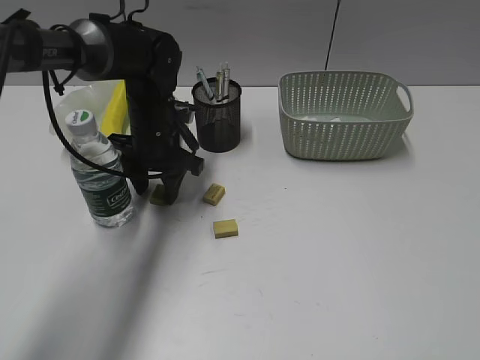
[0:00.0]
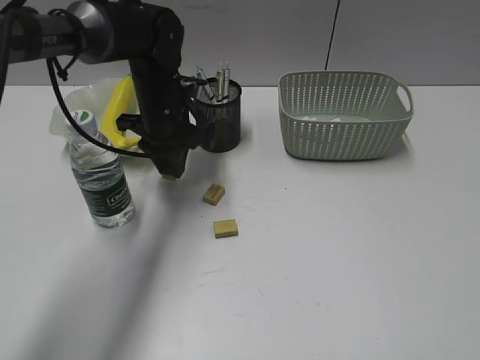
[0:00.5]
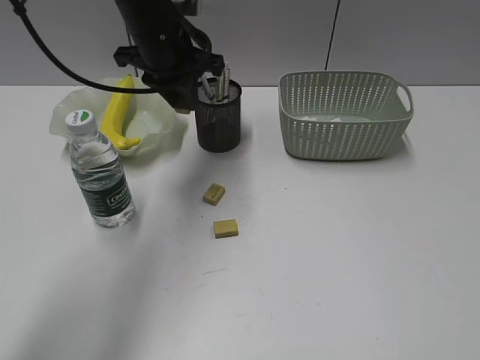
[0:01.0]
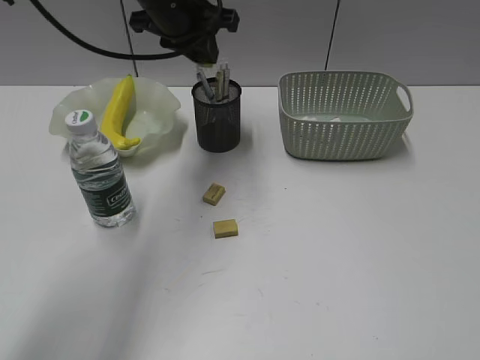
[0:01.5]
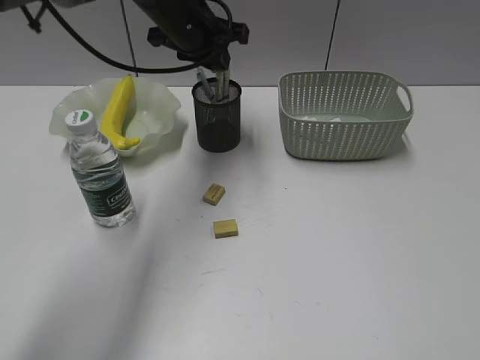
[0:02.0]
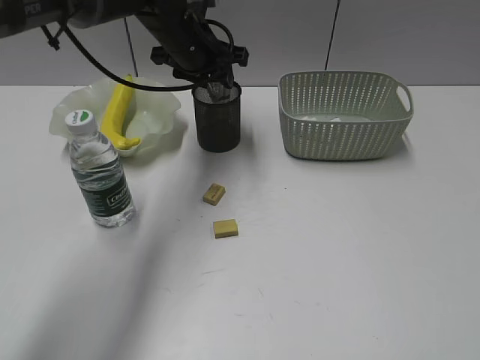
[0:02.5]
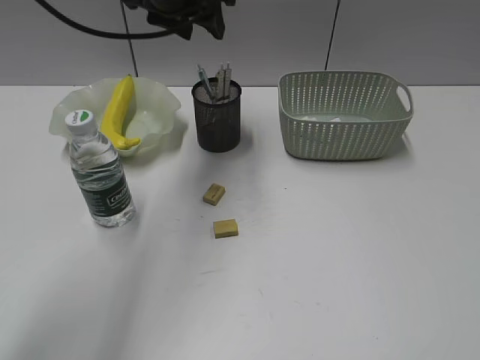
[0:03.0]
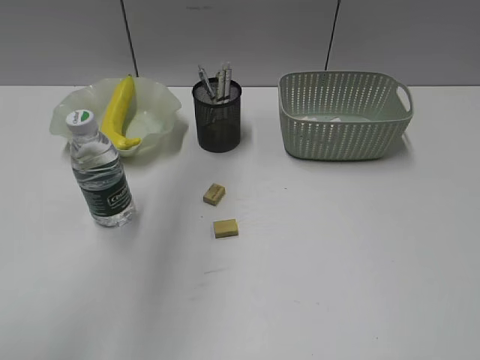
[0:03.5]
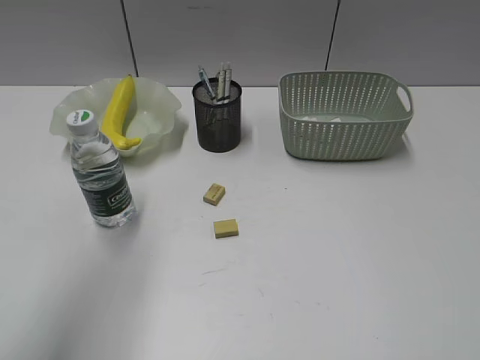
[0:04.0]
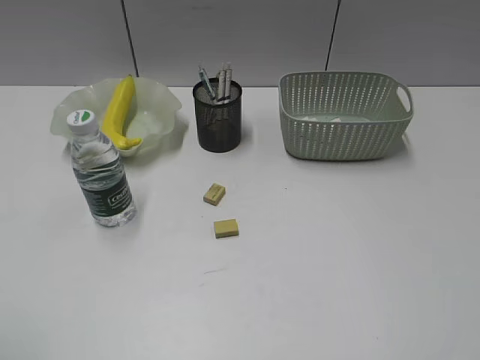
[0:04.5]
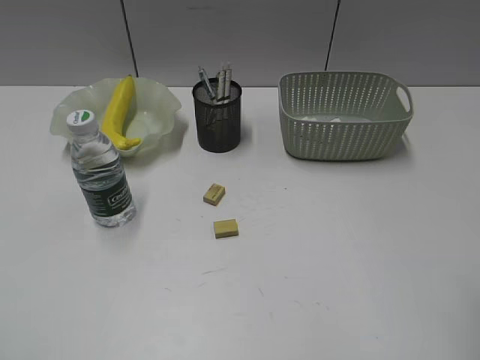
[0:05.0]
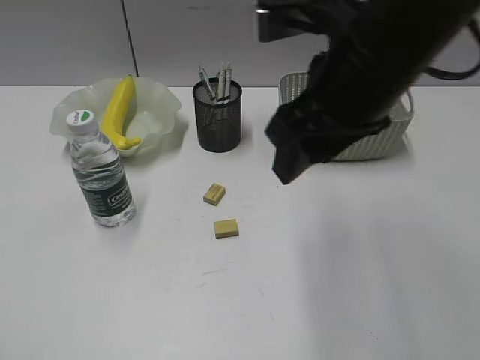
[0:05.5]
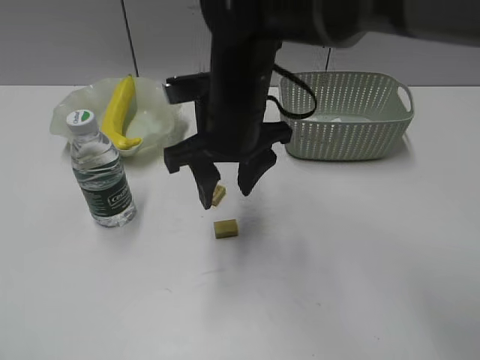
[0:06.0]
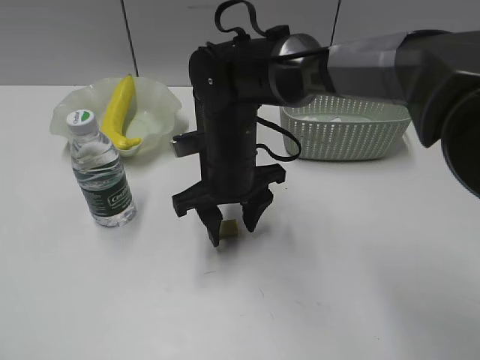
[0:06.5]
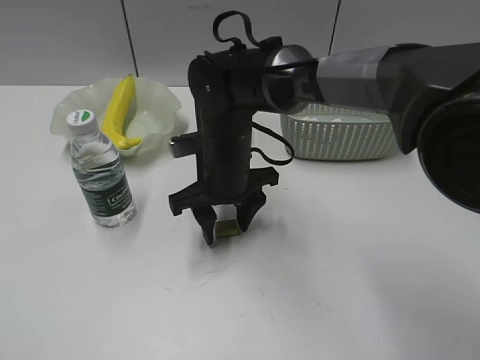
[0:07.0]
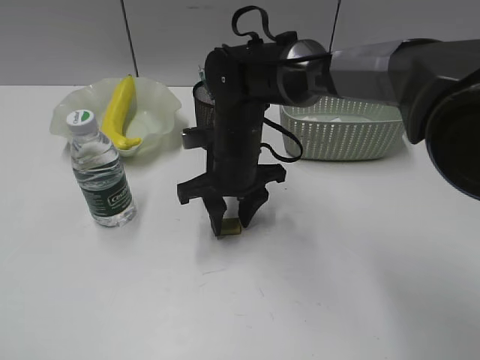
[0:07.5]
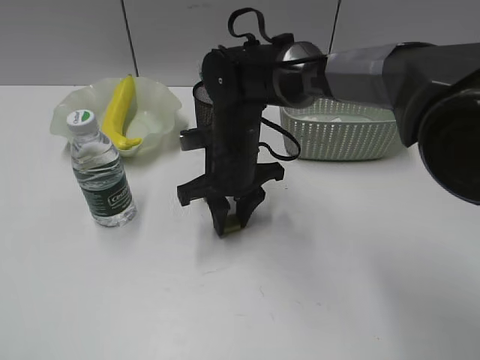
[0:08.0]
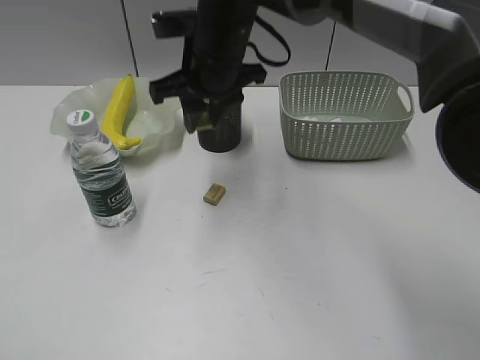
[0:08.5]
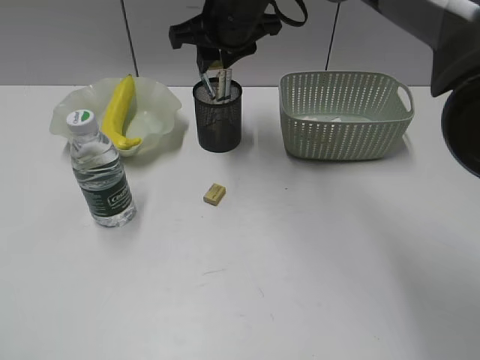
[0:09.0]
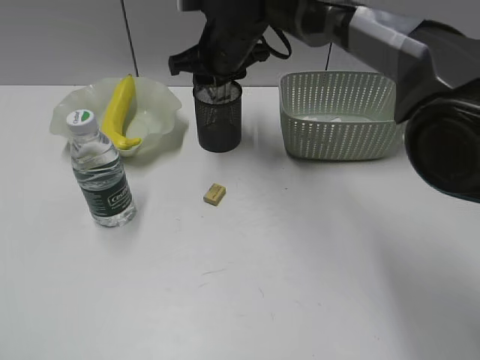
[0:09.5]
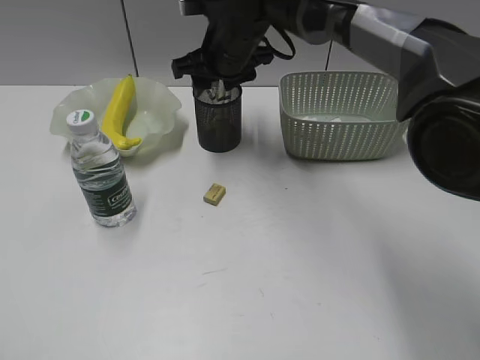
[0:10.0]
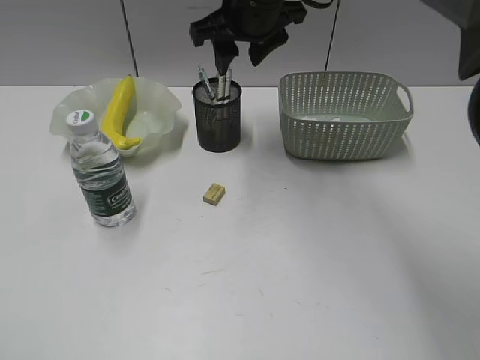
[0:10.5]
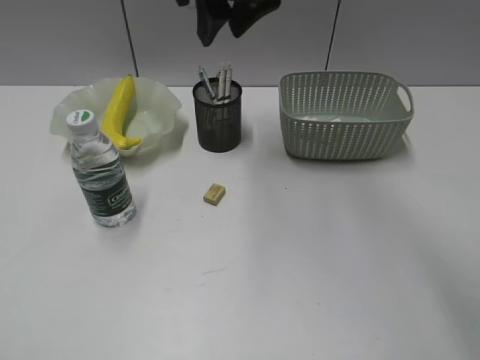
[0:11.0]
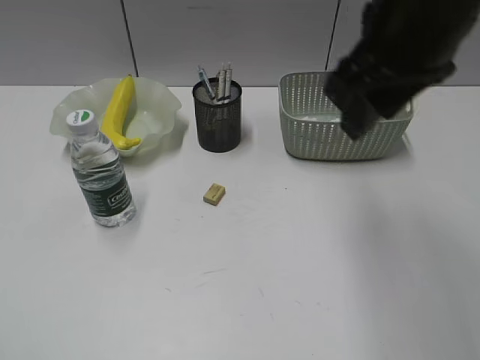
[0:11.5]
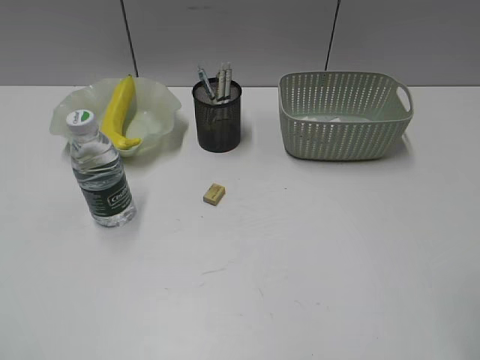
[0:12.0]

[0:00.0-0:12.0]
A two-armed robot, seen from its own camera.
Step, 0:00.5 to 0:02.5: Place the eraser in pen holder with left gripper.
Step, 0:03.0 to 0:08.0: Grasp the eraser with right gripper.
Step, 0:08.5 to 0:09.5: Place the eraser in pen holder with right gripper.
0:00.0 to 0:02.0: The left gripper shifts some 15 cm upward, and closes its fingers.
0:02.0 to 0:04.0: The left gripper shifts roughly 35 cm backward, to the left and upward.
0:04.0 to 0:06.0: The left gripper moves backward, to the left and downward, approximately 25 cm; the right gripper moves to the left and forward, approximately 40 cm.
0:06.0 to 0:08.0: The right gripper shifts roughly 10 cm downward, and closes up.
0:08.0 to 0:10.0: The right gripper moves forward and upward, some 15 cm, and opens its fingers.
0:10.0 to 0:12.0: The right gripper moves backward and to the right, some 40 cm.

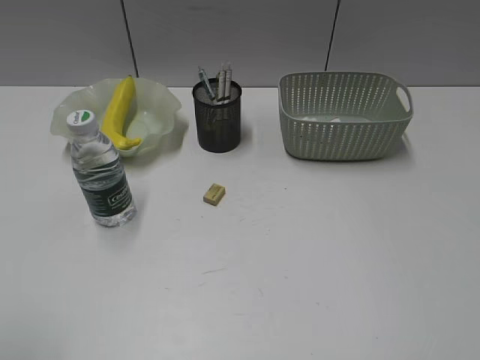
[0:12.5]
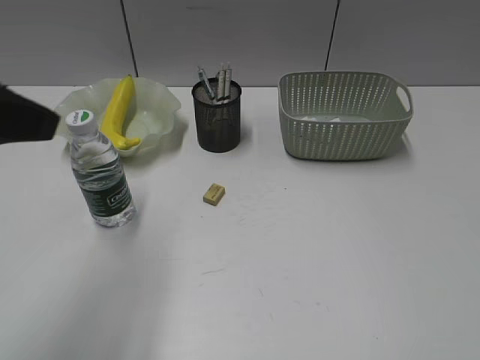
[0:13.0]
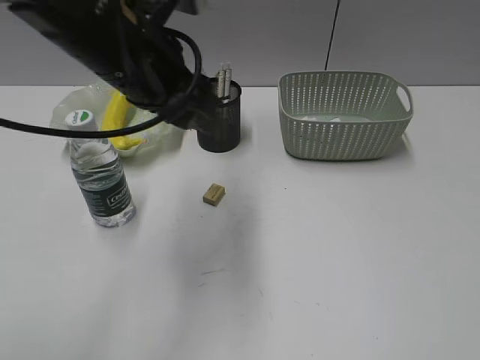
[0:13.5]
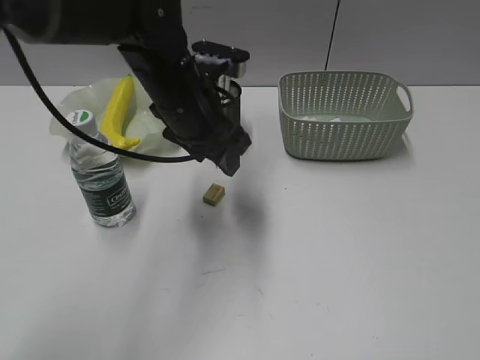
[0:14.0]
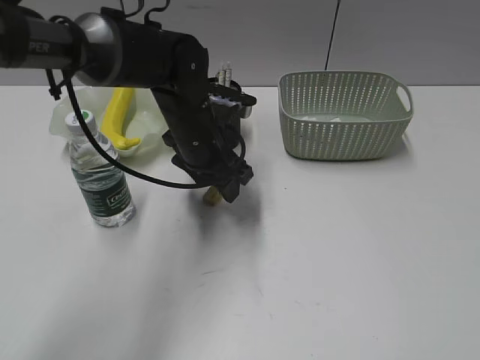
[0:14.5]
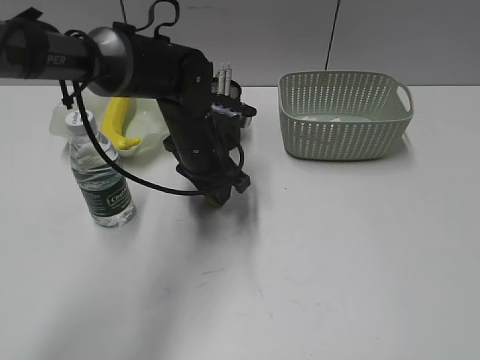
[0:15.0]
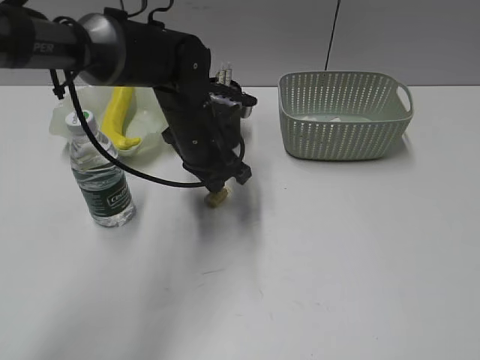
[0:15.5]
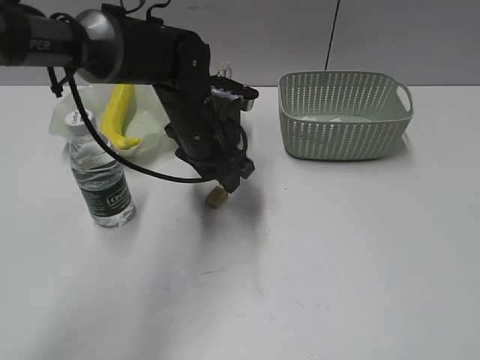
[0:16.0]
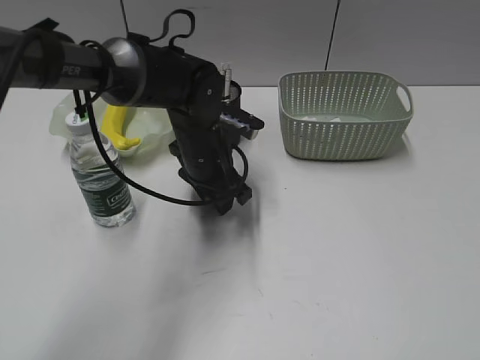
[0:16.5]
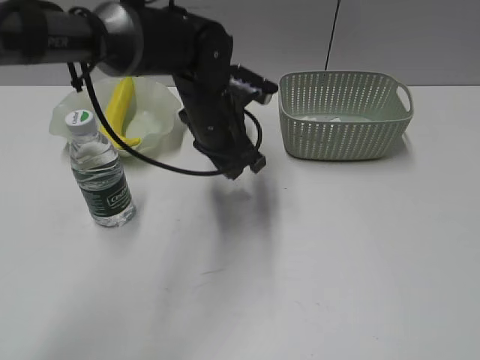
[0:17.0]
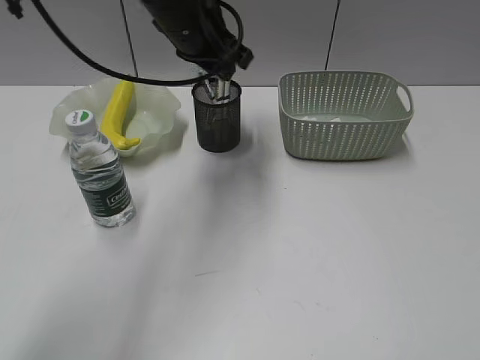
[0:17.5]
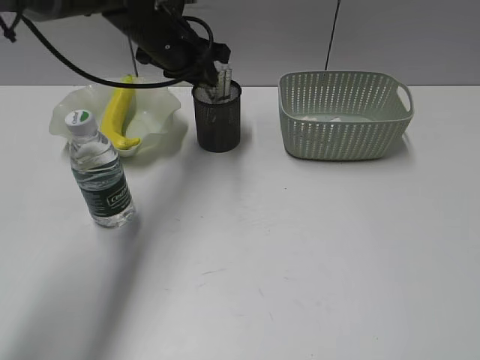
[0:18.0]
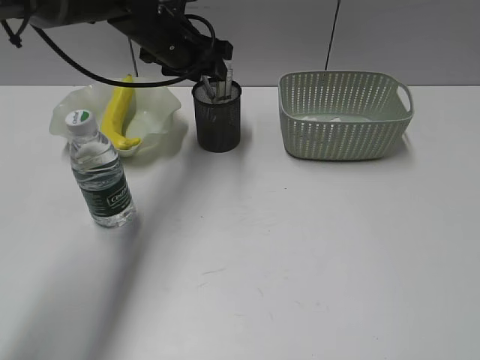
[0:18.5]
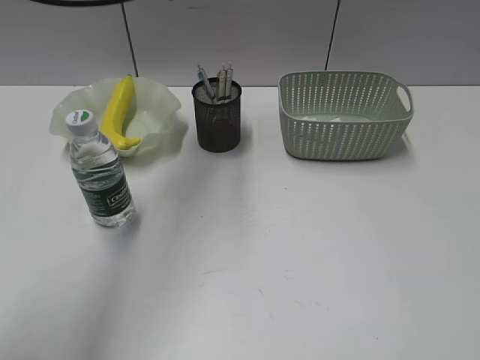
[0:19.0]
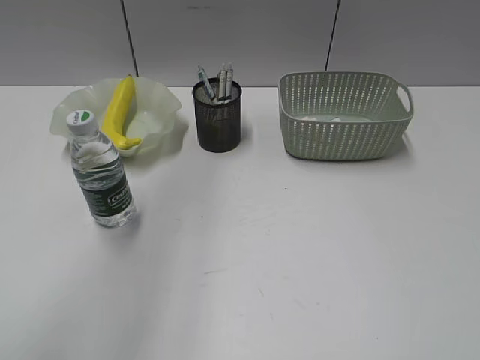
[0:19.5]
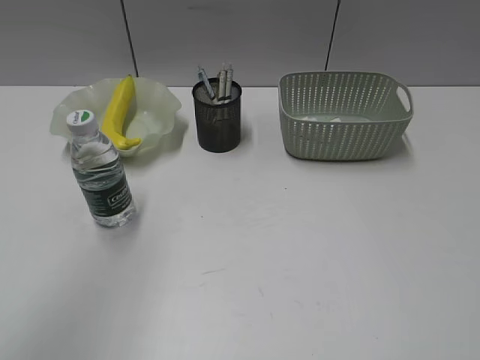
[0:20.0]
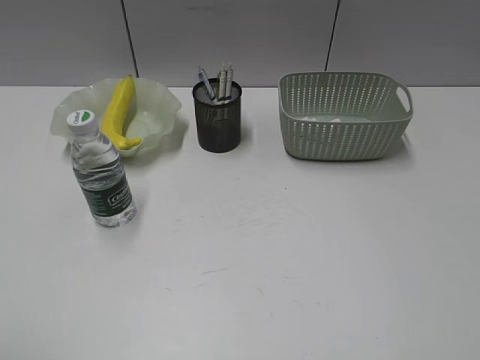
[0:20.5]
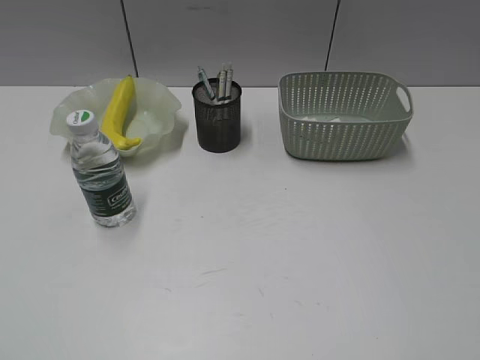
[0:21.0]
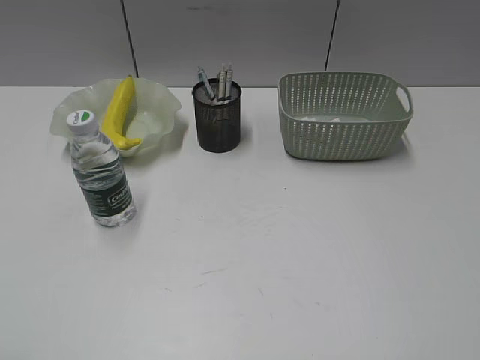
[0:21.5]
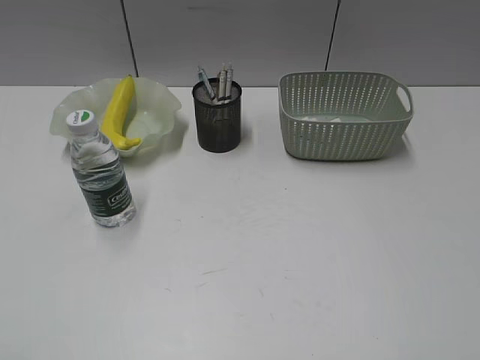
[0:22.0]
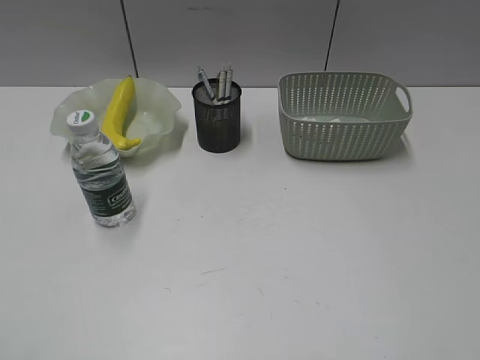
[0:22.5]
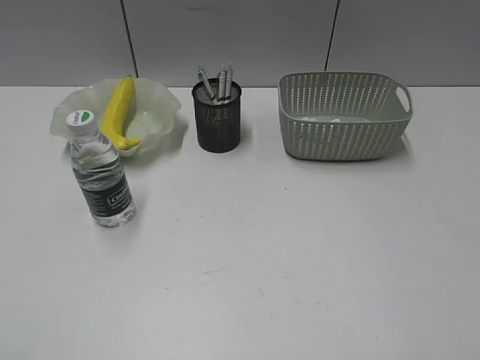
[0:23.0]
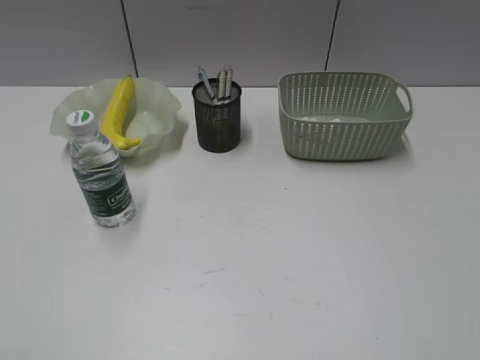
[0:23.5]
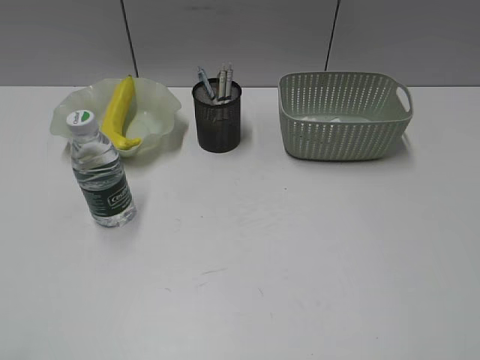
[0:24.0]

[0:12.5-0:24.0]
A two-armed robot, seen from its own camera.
Step, 0:12.5 to 0:16.5: Grasp the eraser with left gripper.
Step, 0:17.0 to 0:18.0: Place the eraser in pen holder with left gripper.
0:12.5 to 0:14.5: The left gripper is displaced forward, to the right and downward by approximately 50 cm, and opens its fingers.
0:14.5 to 0:16.5: The left gripper closes and opens again.
0:16.5 to 0:18.5: The left gripper moves forward, upward and to the left, some 15 cm, and closes, then opens again.
0:18.5 to 0:20.0: The left gripper moves backward, upward and to the left, about 40 cm.
0:20.0 to 0:22.0: The left gripper travels downward, backward and to the left by roughly 25 cm.

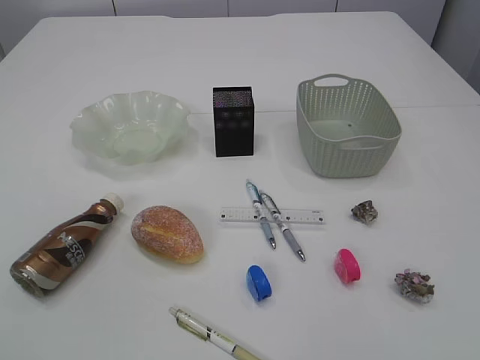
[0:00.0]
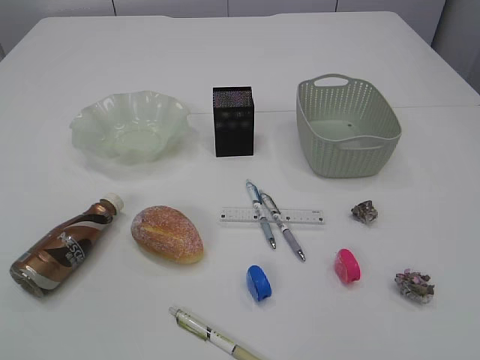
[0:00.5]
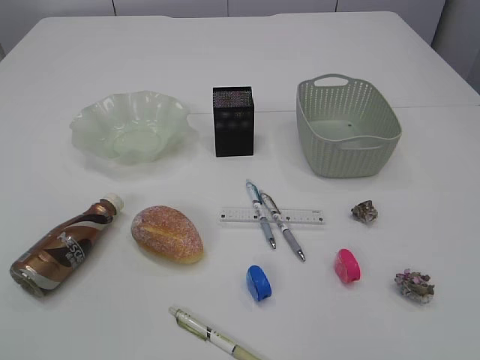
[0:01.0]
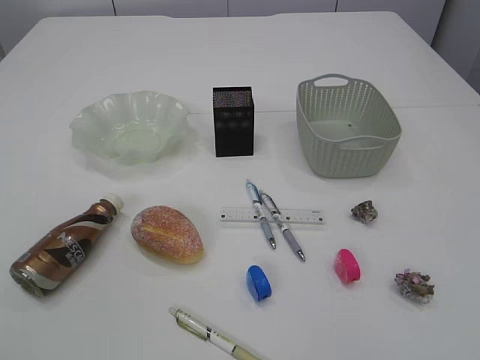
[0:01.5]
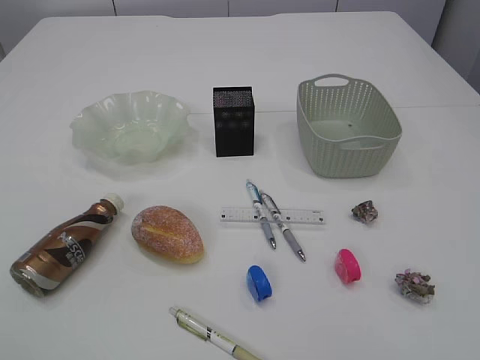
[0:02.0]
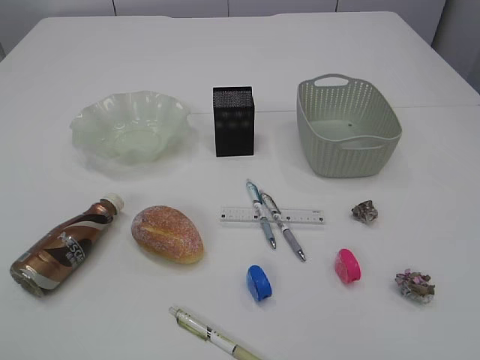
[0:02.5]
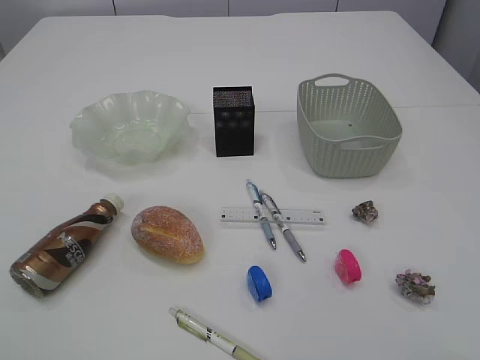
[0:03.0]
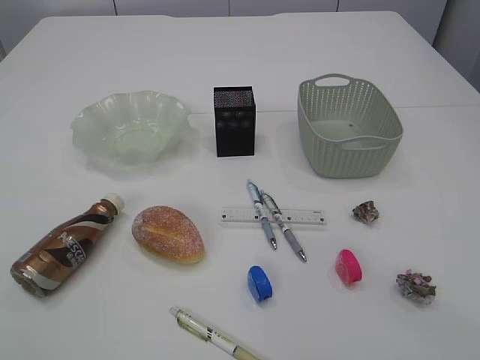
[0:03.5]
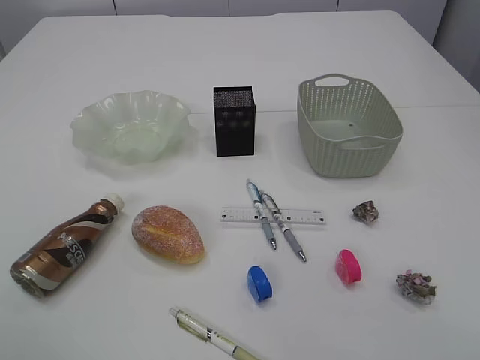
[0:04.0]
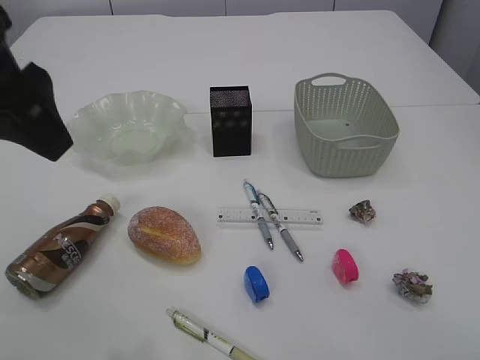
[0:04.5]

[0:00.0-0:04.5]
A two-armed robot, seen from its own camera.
0:02.0 to 0:04.5: The left gripper heads forward and to the right, covering some 25 cm. Meanwhile the right gripper shifts some 20 cm forward and upward.
